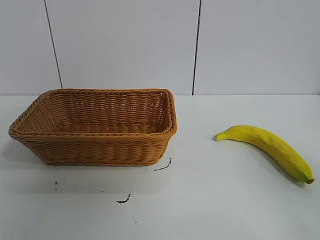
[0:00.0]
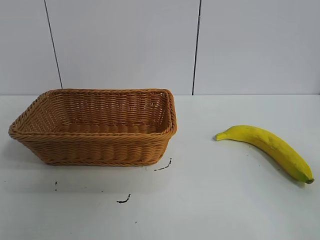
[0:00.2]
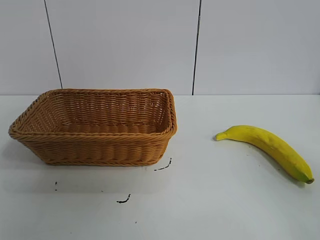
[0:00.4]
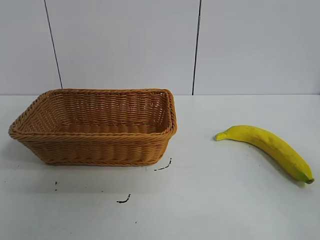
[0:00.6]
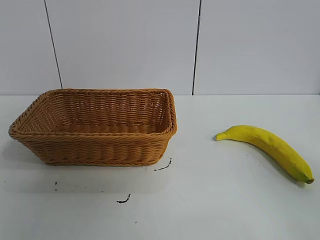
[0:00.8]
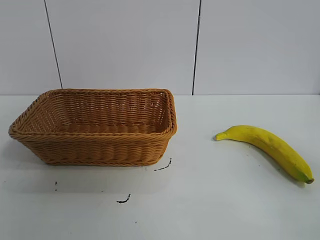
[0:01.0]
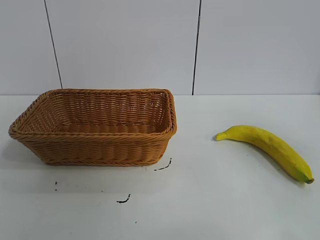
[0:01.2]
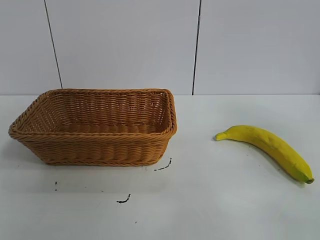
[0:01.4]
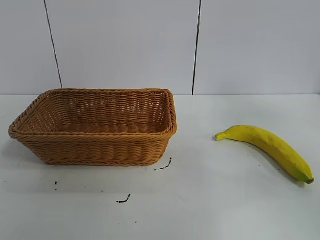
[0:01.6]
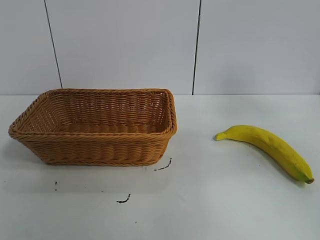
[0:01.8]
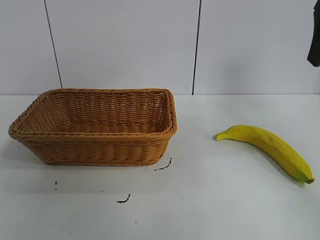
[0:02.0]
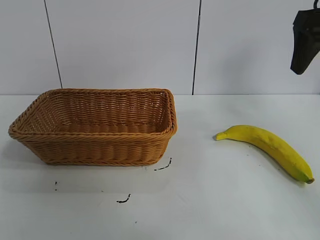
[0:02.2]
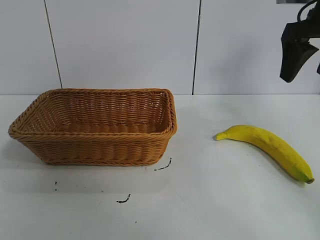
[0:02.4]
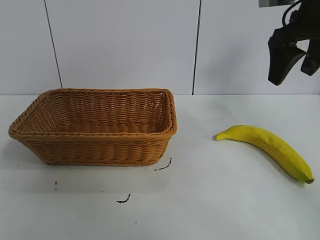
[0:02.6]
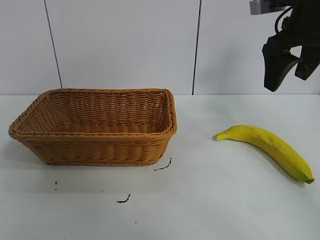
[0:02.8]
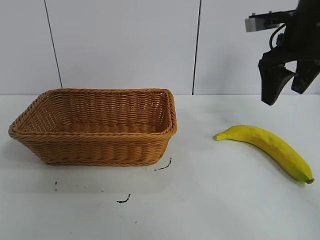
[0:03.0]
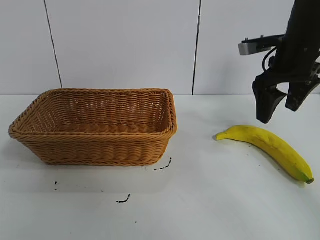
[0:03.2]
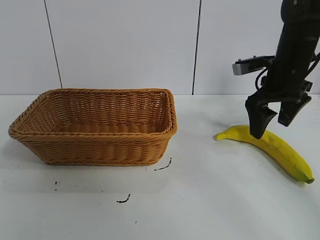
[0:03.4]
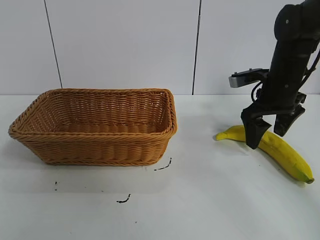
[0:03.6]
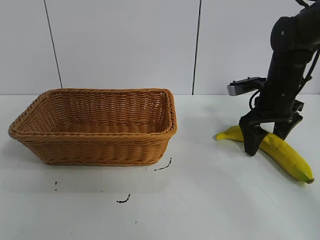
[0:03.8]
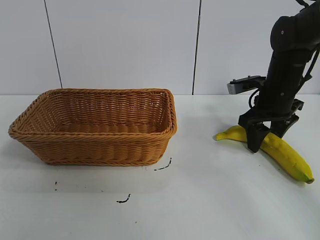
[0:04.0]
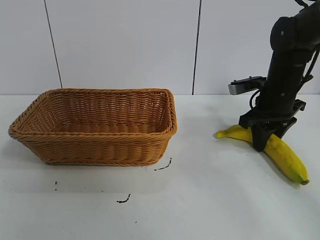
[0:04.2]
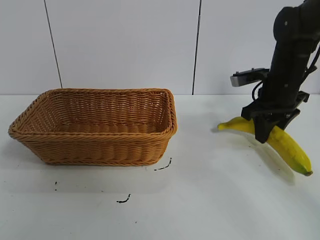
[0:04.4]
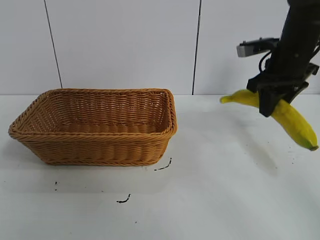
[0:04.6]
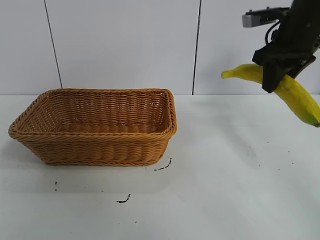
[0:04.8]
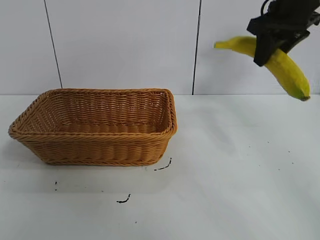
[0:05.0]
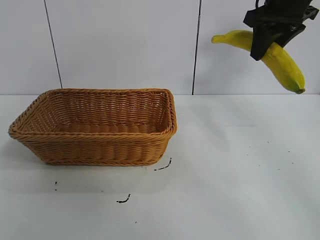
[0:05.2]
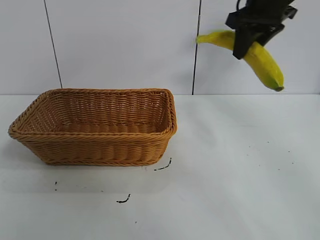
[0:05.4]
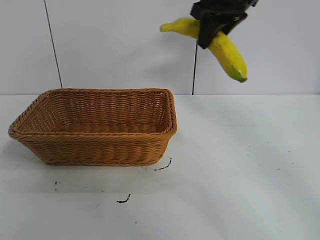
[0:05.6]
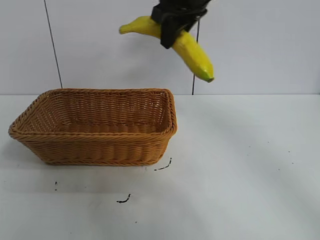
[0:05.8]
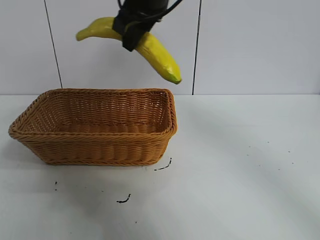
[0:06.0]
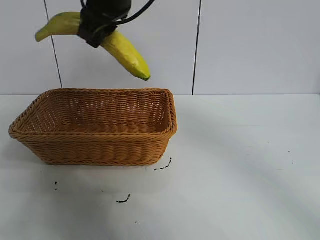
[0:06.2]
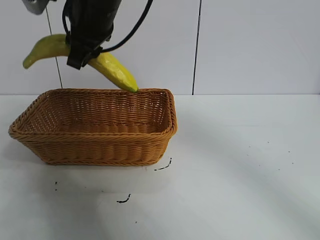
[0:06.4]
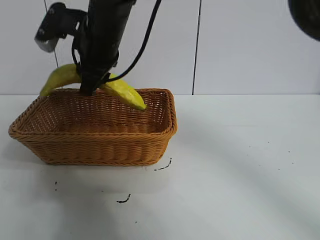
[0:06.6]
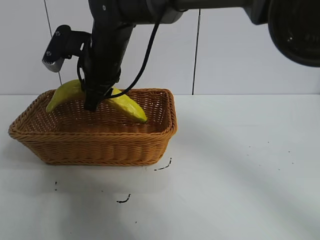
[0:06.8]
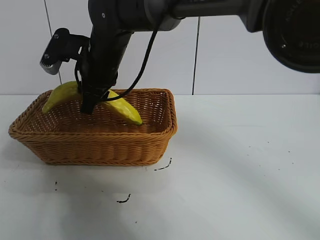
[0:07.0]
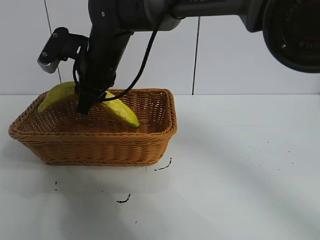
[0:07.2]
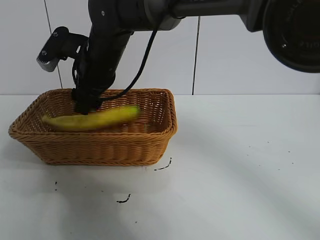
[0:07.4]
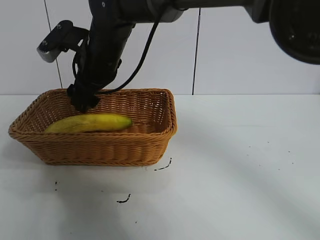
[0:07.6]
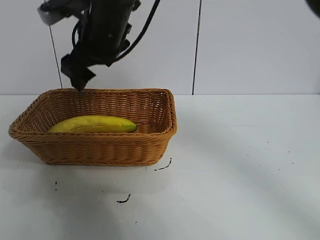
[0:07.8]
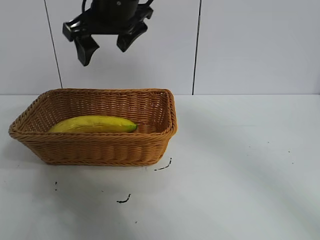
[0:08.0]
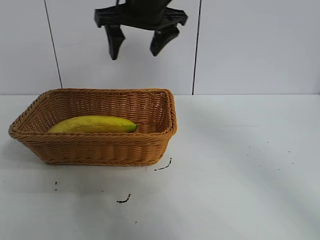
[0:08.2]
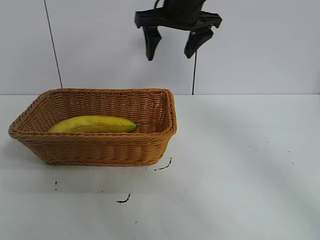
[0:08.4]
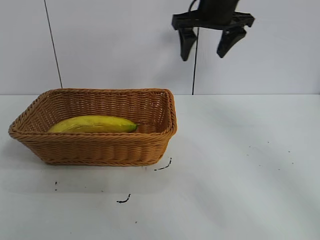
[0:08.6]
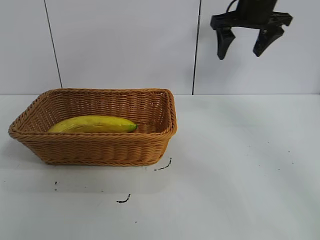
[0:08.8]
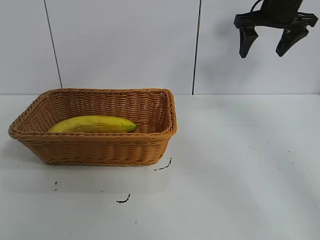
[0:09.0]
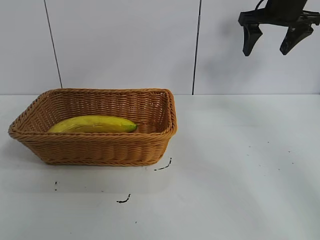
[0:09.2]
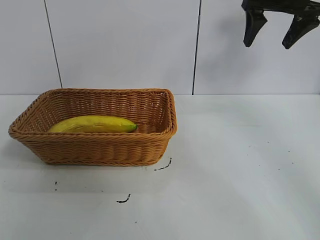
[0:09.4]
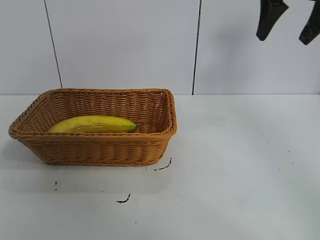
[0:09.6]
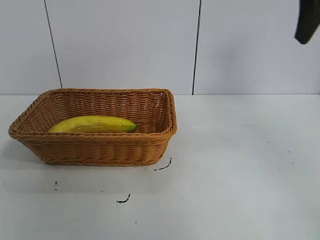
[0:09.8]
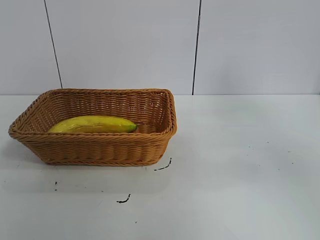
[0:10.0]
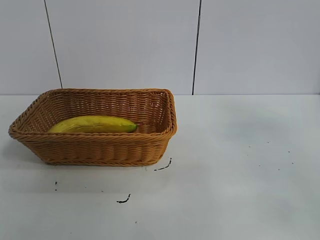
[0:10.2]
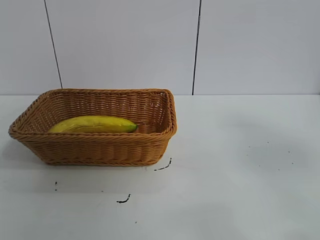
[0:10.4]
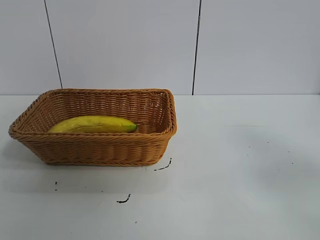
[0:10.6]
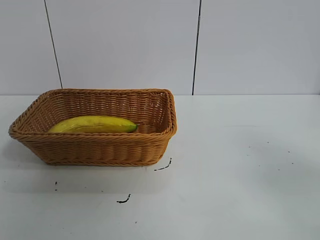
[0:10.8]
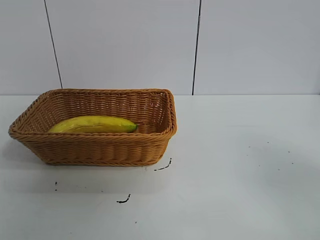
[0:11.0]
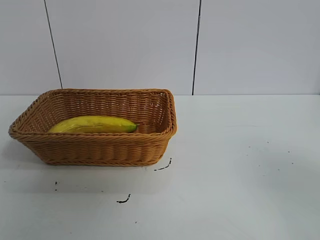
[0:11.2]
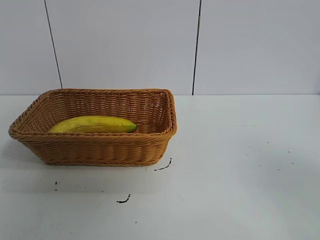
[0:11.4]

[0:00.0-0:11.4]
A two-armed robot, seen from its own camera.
Task of the whole recording: pick up the banana and put it into the basket.
Step, 0:00.8 to 0:04.2: Grasp the banana with right gripper.
Step, 0:04.4 to 0:07.4: Place the banana in the basket with right gripper.
